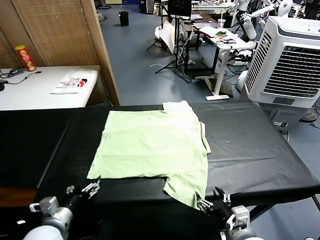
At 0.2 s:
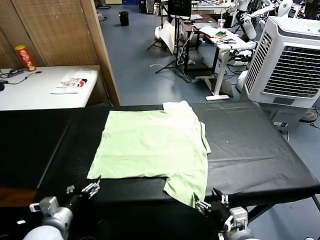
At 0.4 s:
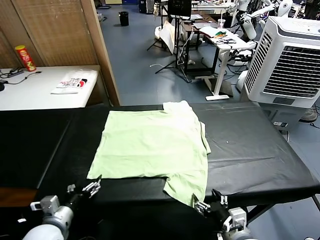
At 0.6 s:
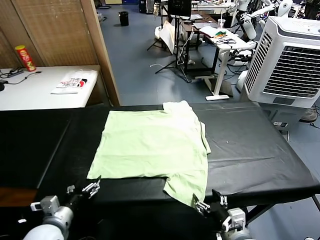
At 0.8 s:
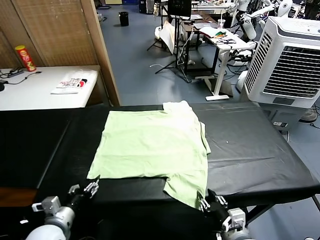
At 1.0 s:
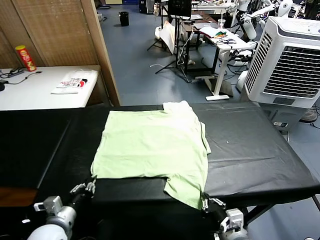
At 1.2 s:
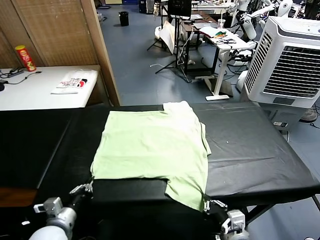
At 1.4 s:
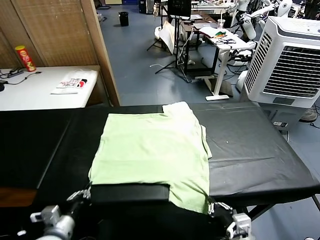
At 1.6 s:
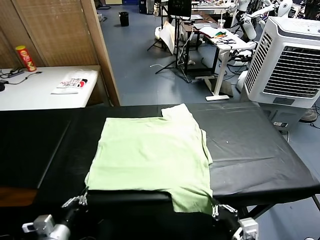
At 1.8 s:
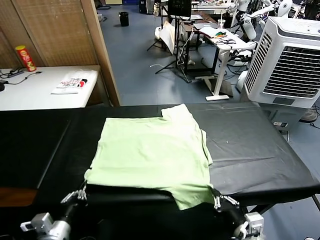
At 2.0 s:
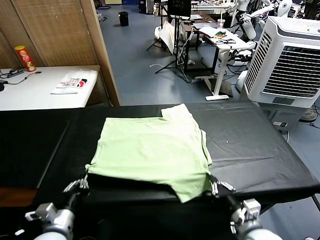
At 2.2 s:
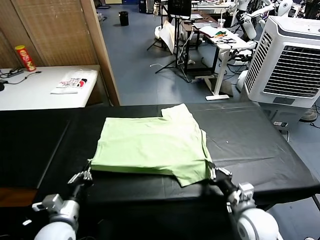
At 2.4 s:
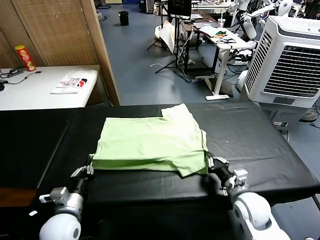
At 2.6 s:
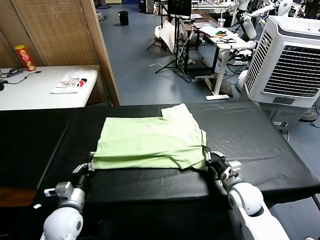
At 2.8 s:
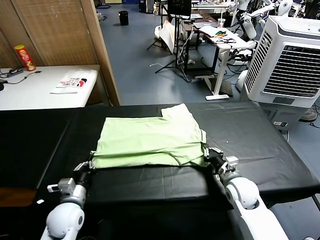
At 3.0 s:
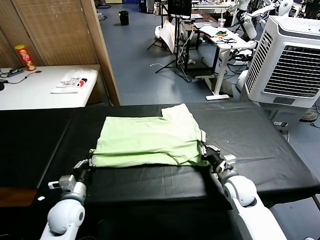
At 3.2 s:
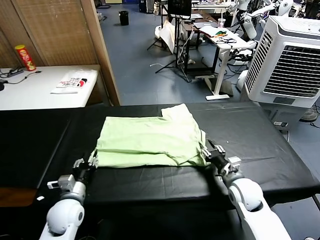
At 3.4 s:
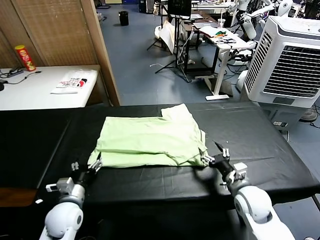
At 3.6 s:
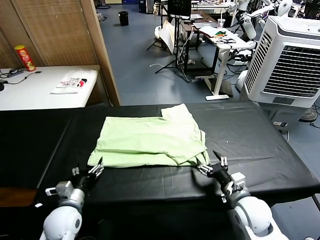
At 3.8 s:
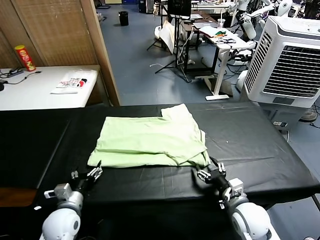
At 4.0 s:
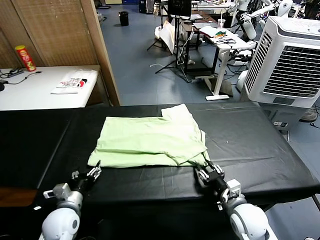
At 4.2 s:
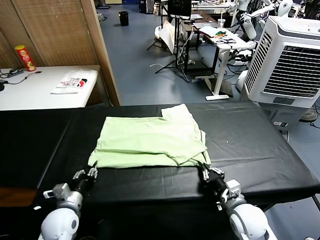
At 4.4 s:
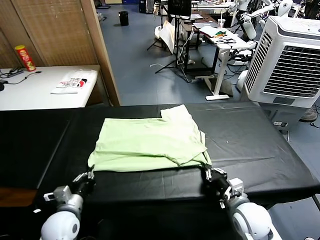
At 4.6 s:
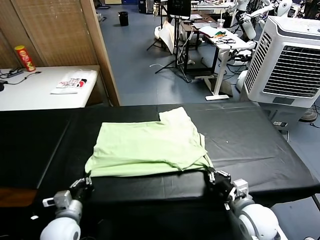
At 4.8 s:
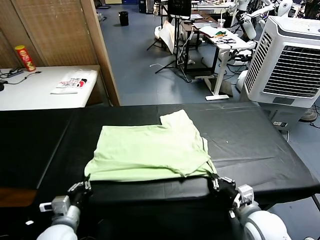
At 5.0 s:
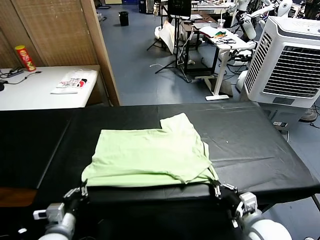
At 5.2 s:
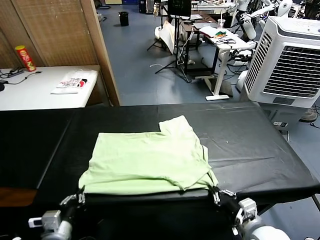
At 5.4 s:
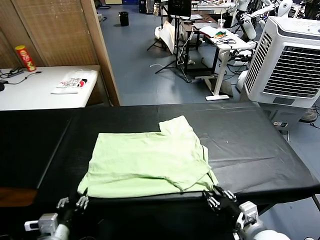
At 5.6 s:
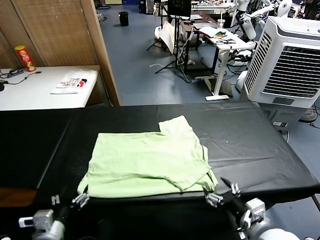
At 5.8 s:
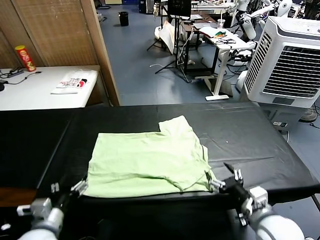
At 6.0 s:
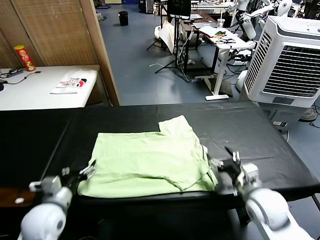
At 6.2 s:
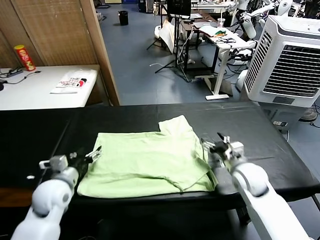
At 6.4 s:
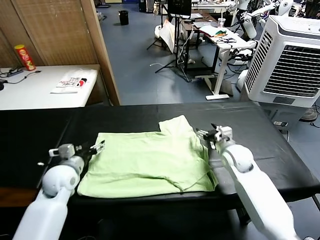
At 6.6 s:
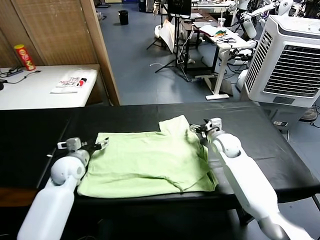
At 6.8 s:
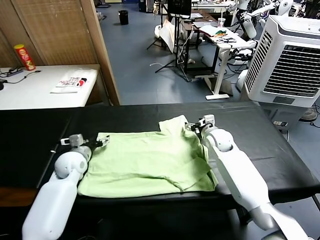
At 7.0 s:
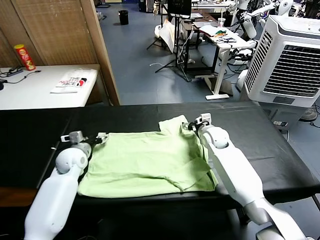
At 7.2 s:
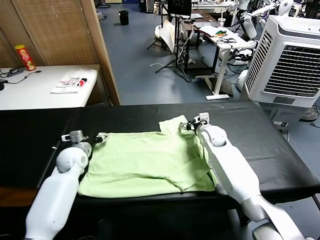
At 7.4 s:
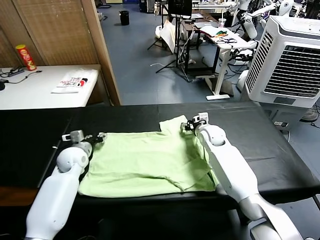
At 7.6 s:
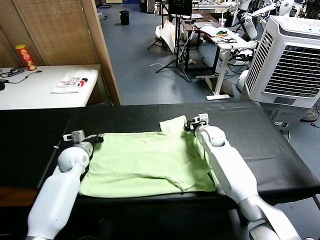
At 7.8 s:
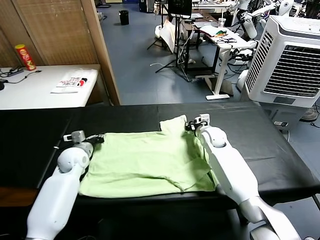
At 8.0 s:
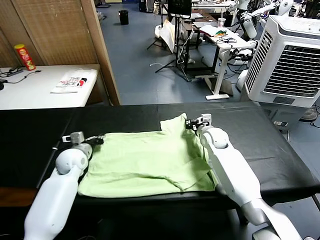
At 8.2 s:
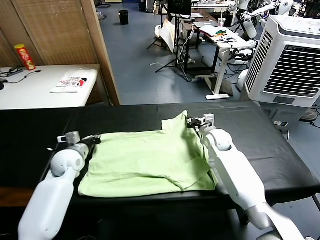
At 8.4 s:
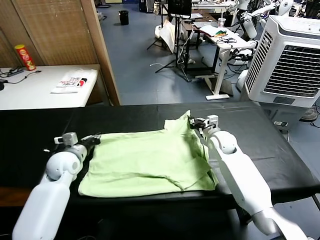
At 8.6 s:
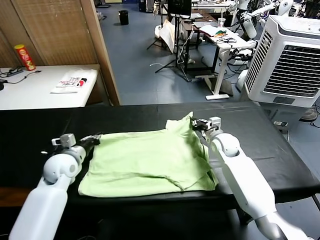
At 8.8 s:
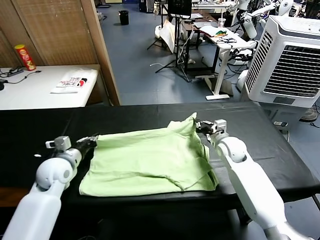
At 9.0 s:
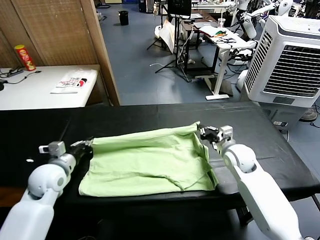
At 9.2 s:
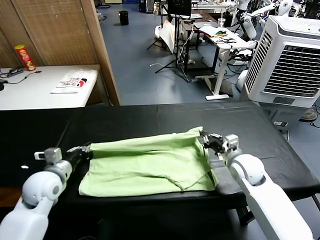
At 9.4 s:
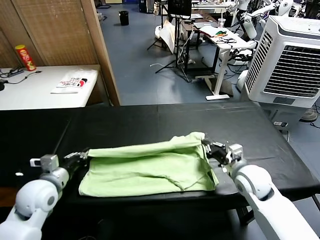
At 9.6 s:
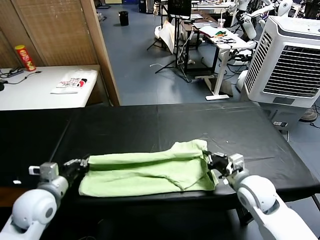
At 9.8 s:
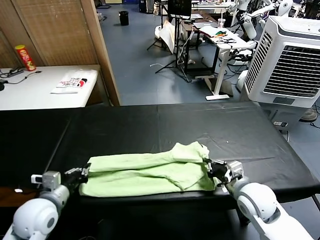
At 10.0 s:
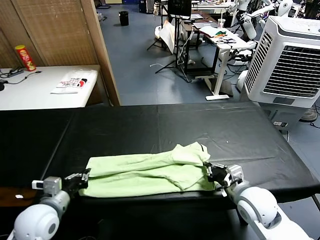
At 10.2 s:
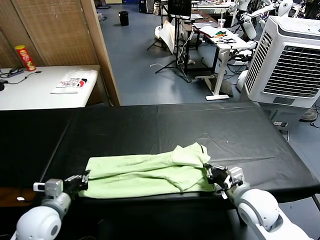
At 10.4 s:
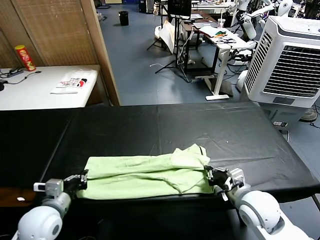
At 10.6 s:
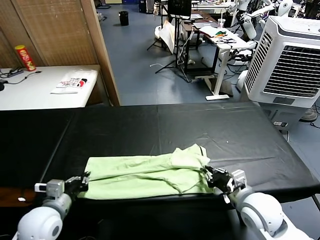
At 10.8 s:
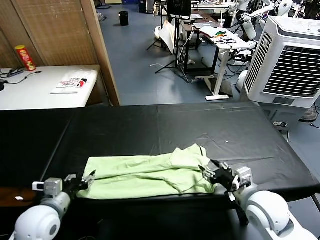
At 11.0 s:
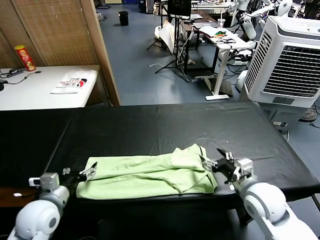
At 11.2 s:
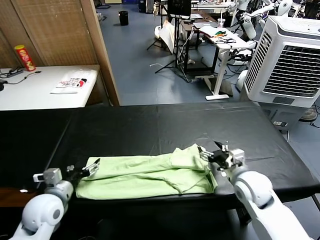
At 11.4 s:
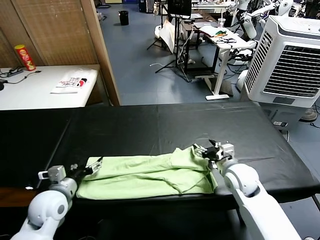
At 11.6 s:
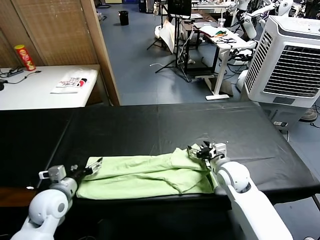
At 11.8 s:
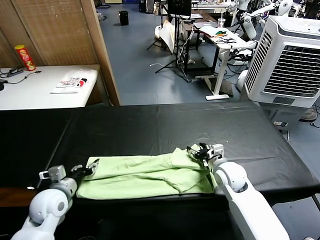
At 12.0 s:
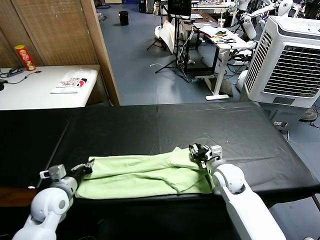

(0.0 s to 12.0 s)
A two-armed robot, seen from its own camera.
Task of the whole recording: fold and organize the clothes.
Step, 0.0 s - 1.2 s: use both grippers simultaneously to clamp the lower edge of the clothing fabric.
Step, 1.4 s - 3.2 s: use both grippers to drag the lower edge of the fabric forward and fold it over the upper edge.
Step, 3.4 s - 5.4 s: Drag the clothes downward with both gripper.
Step, 5.8 s - 7.6 s: use both grippers simultaneously to clamp the upper edge of the clothing fabric.
Step, 7.8 s - 10.8 s: use both grippers to drag the upper edge of the fabric backward and fold it over the lower edge.
1.6 s - 3.0 s: Both grippers travel together forward, roughly 15 cm. The right gripper opens.
3.0 s - 4.4 s: The right gripper is displaced backward by some 10 cm, and closes up. The left gripper opens and closes again.
4.4 s - 6.0 s: The right gripper moves forward, roughly 10 cm, and opens. The left gripper heads upward, covering roughly 10 cm, goes backward and returns, roughly 10 cm each way, and opens.
6.0 s - 7.6 s: Both grippers travel together forward, roughly 20 cm. The right gripper closes; the left gripper closes up.
7.6 s - 9.0 s: The left gripper is displaced backward and upward by about 15 cm. The right gripper is displaced backward and to the right by about 15 cm.
9.0 s - 10.4 s: Both grippers move backward, approximately 15 cm.
10.4 s - 12.0 s: The left gripper travels forward by approximately 5 cm, and opens and closes again, while the right gripper is displaced forward and downward by roughly 15 cm, and opens, then closes once more.

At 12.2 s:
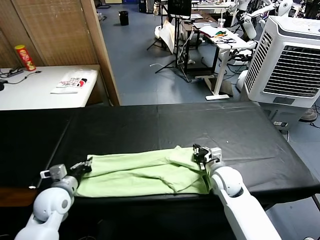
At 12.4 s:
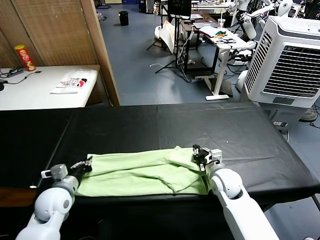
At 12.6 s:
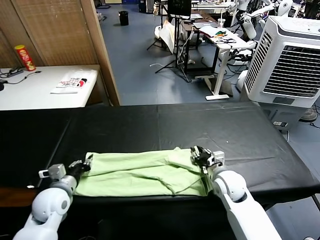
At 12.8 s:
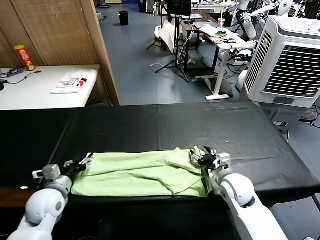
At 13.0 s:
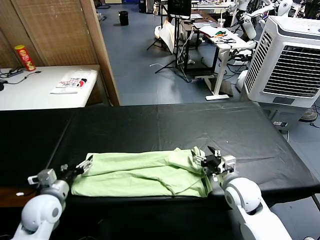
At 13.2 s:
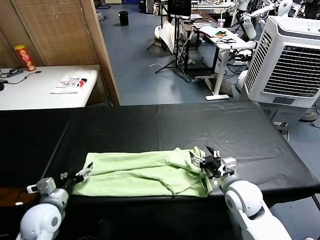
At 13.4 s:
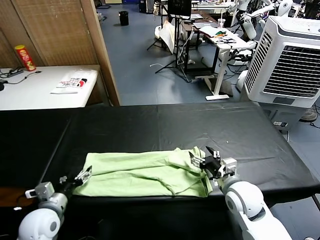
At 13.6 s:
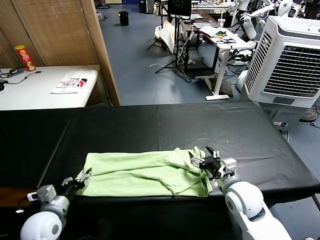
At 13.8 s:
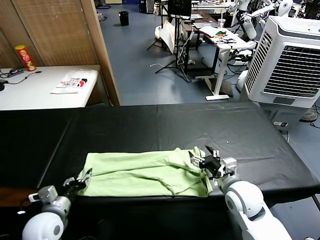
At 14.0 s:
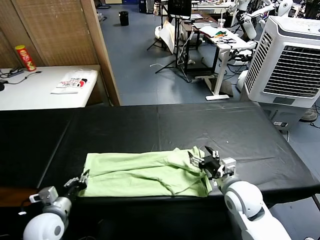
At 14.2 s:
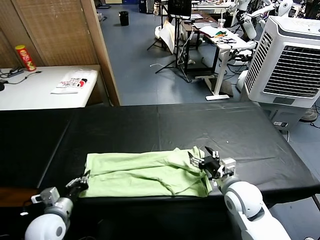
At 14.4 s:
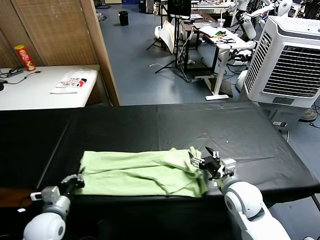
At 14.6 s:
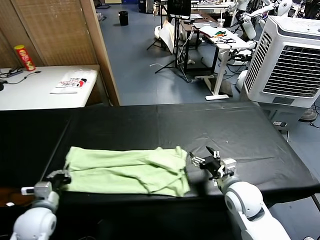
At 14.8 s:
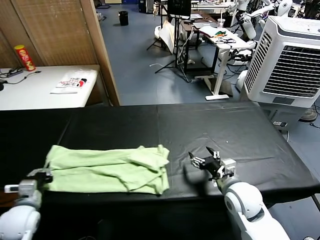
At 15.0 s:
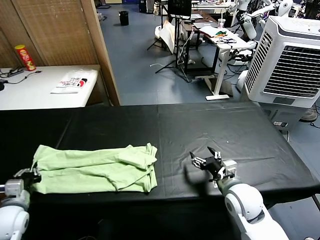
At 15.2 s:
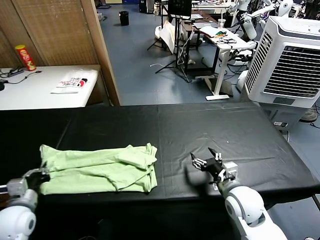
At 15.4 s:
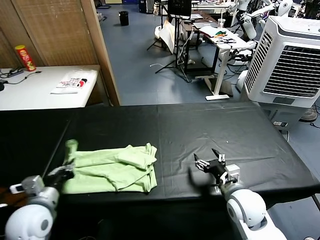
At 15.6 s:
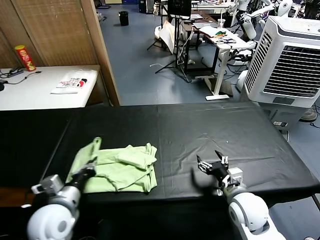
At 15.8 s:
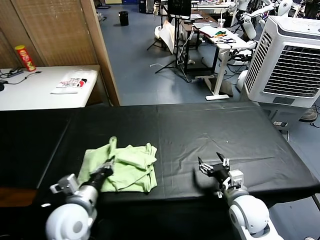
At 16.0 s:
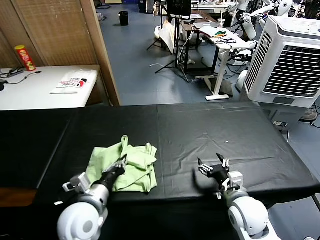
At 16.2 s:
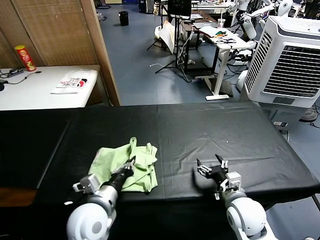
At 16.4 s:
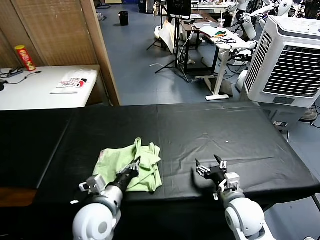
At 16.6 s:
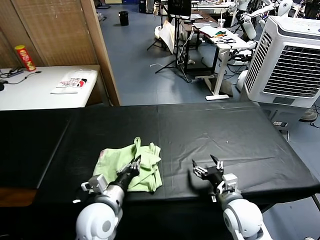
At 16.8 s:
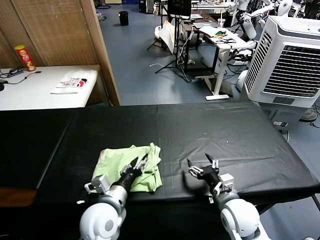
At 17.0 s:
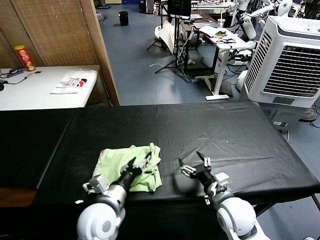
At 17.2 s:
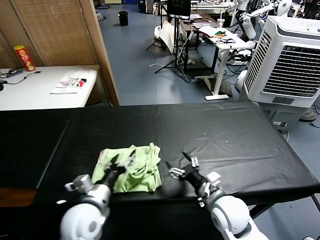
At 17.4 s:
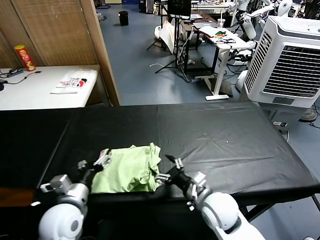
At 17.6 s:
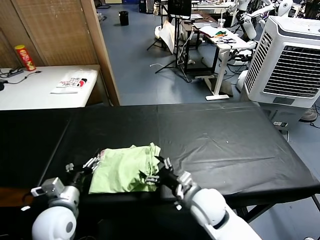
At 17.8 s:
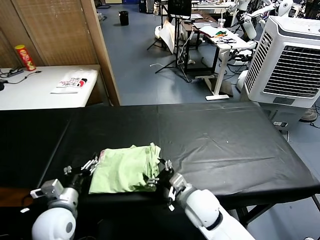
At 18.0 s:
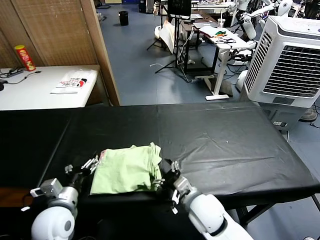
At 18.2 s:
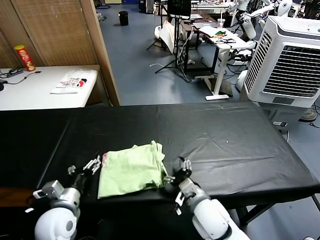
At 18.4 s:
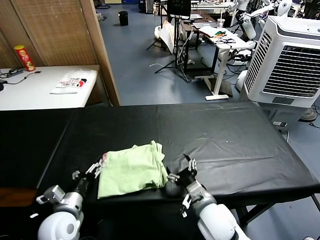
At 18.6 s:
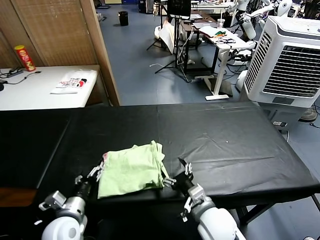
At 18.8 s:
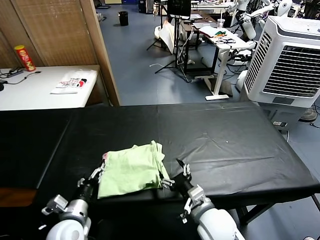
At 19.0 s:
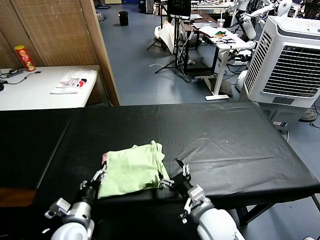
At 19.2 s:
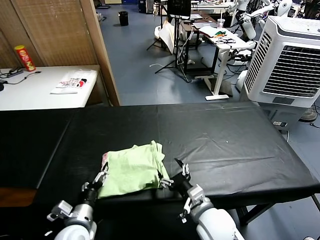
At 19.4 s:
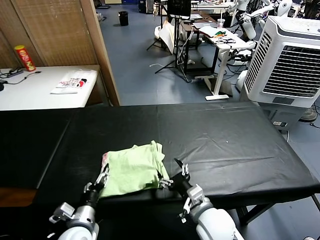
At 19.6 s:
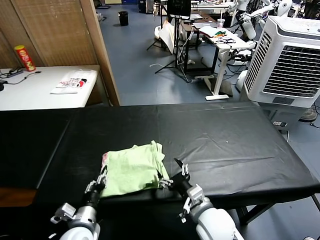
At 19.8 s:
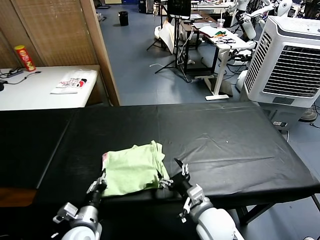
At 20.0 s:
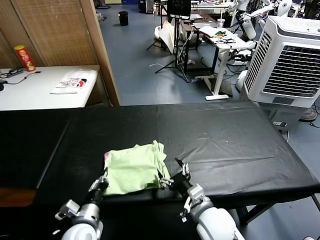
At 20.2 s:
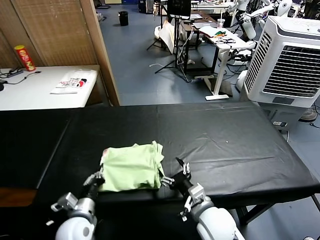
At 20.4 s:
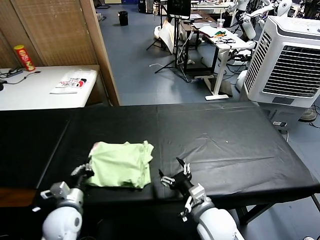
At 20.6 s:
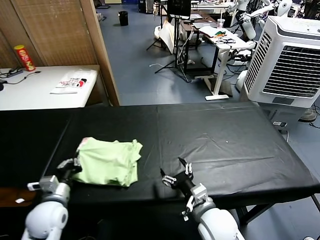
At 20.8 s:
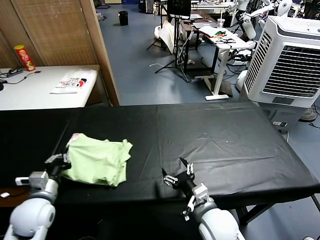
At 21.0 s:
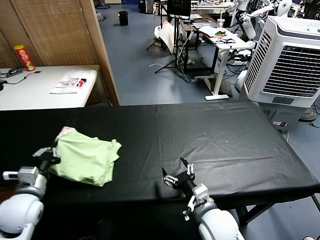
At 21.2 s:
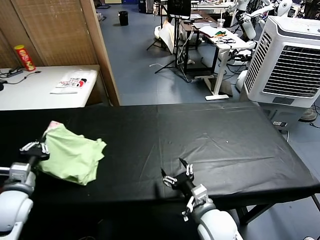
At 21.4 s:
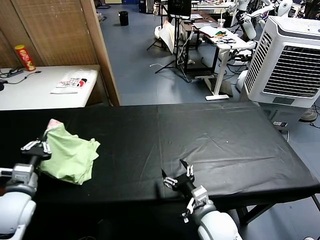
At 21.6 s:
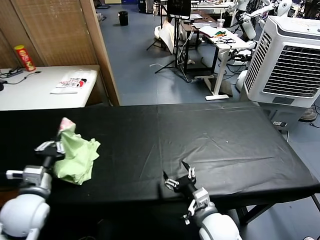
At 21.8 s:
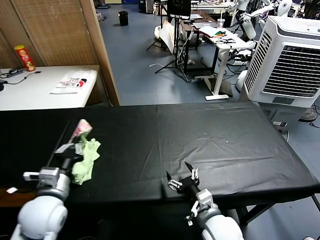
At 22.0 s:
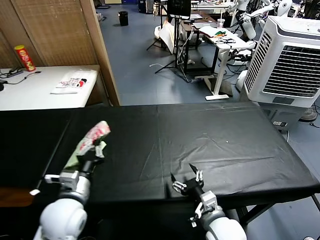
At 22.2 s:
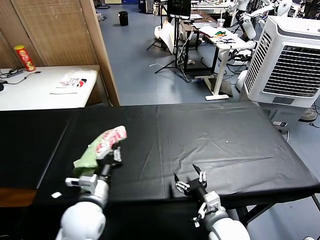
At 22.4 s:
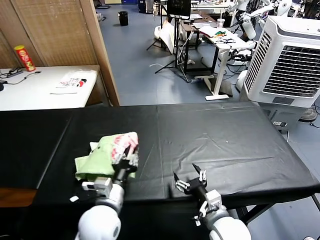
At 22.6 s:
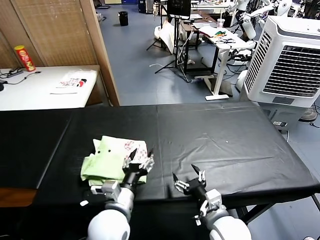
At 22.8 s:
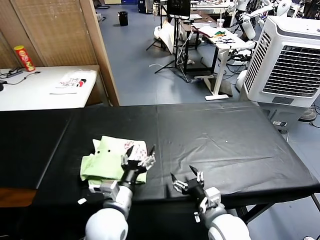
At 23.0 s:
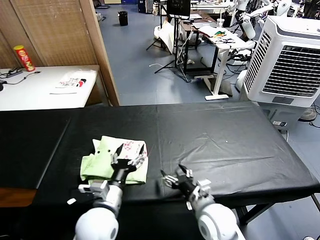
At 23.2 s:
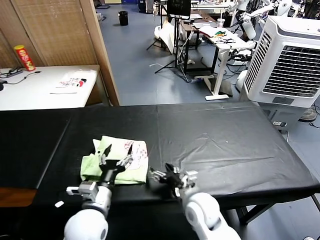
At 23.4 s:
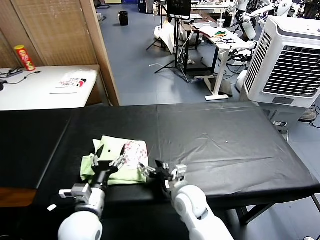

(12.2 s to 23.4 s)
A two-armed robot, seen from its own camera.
Task of the whole recording: fold and organize the clothes.
Step, 12.2 s - 14.0 s: use the left gripper to clamp the left edge of the fabric.
Step, 14.2 s - 16.8 s: use the left gripper to drag the left edge of the fabric to the left and folds it over the right edge.
Step, 17.0 s - 22.4 s: Flip the folded clothes over with left gripper.
12.2 s - 13.8 s: The left gripper moves backward, roughly 5 cm, and opens its fingers. The right gripper is displaced backward and upward by about 10 cm, and opens up.
13.8 s - 15.4 s: The left gripper goes approximately 5 cm upward, travels to the left and back again, roughly 10 cm each way, and closes its fingers.
15.4 s - 17.0 s: The left gripper is displaced to the right by about 15 cm, and opens up.
17.0 s - 18.6 s: The right gripper travels to the left by roughly 5 cm. Meanwhile the left gripper moves to the left and downward, approximately 15 cm.
18.6 s - 20.2 s: The left gripper closes.
20.2 s - 21.8 s: The left gripper is displaced upward by some 15 cm, and reaches approximately 15 cm to the left, then returns.
21.8 s - 23.4 s: The left gripper goes approximately 10 cm to the right, and opens up. The right gripper shifts approximately 10 cm forward and to the left.
